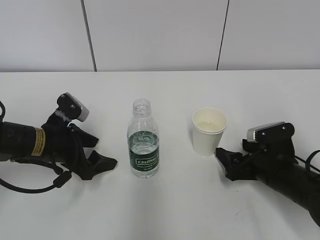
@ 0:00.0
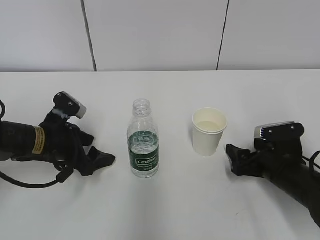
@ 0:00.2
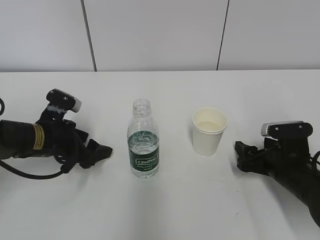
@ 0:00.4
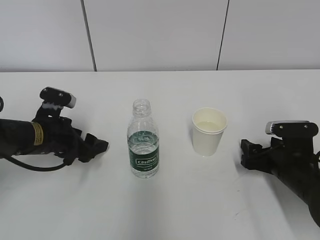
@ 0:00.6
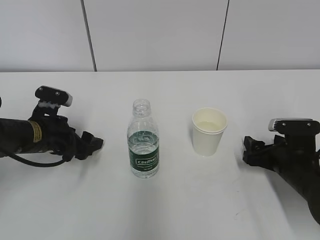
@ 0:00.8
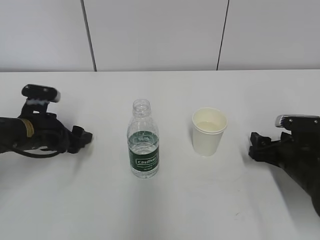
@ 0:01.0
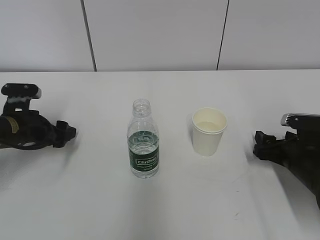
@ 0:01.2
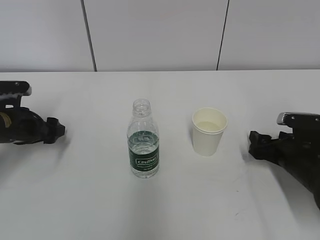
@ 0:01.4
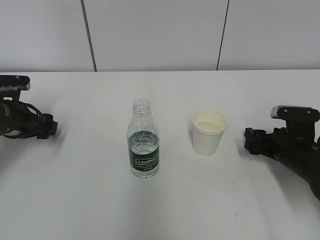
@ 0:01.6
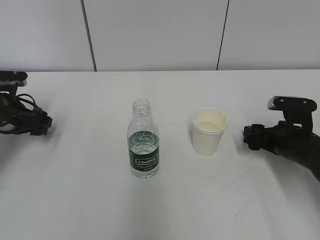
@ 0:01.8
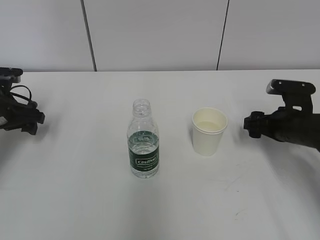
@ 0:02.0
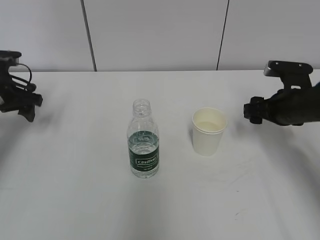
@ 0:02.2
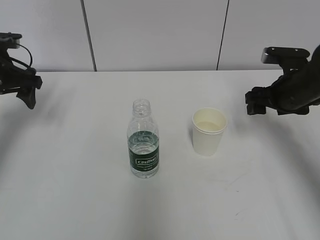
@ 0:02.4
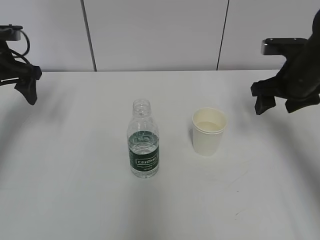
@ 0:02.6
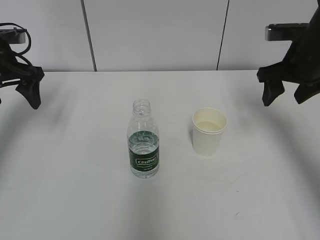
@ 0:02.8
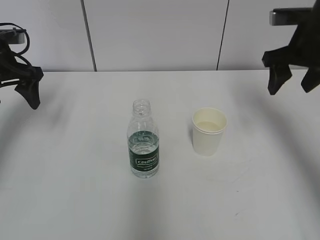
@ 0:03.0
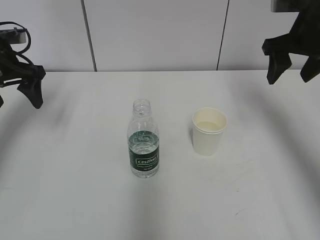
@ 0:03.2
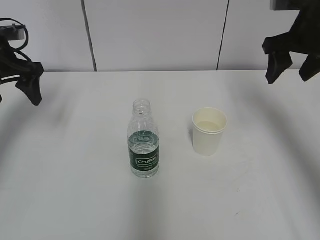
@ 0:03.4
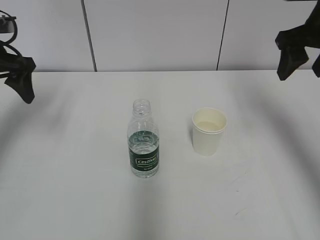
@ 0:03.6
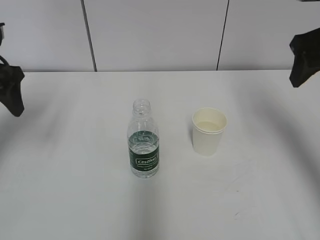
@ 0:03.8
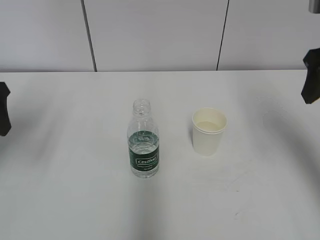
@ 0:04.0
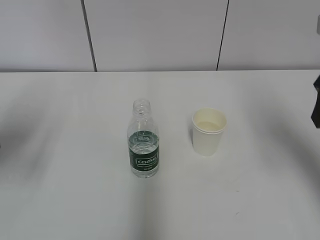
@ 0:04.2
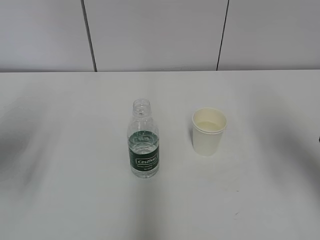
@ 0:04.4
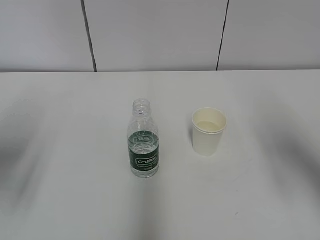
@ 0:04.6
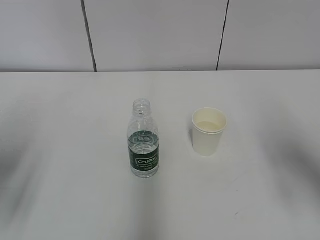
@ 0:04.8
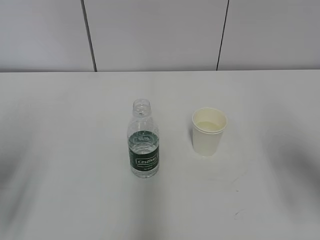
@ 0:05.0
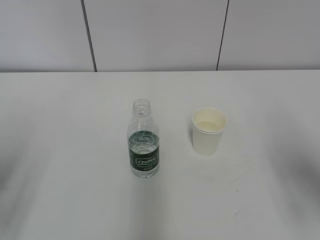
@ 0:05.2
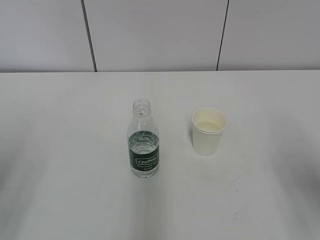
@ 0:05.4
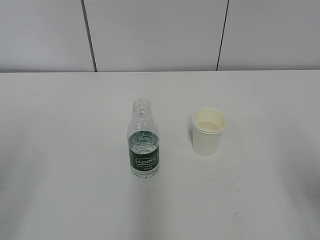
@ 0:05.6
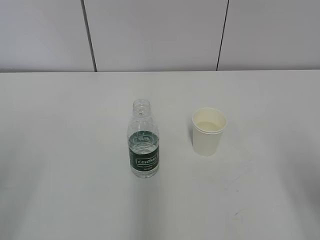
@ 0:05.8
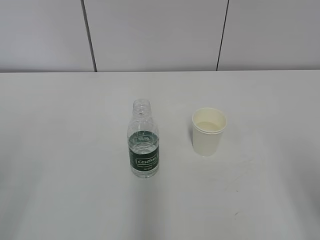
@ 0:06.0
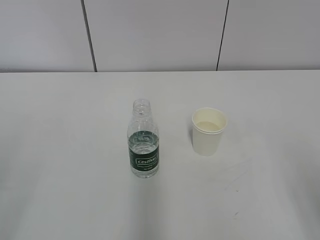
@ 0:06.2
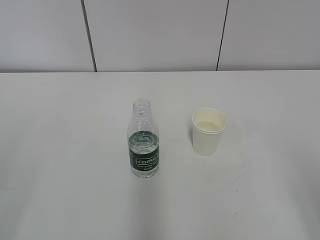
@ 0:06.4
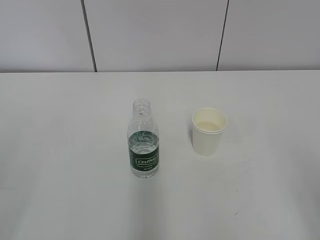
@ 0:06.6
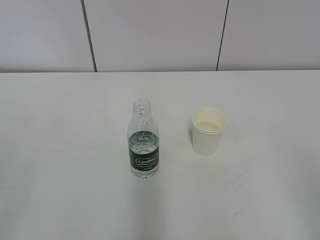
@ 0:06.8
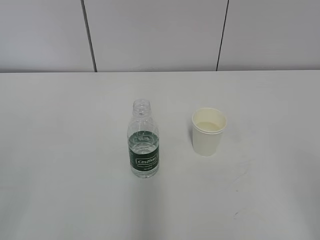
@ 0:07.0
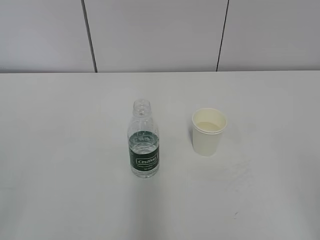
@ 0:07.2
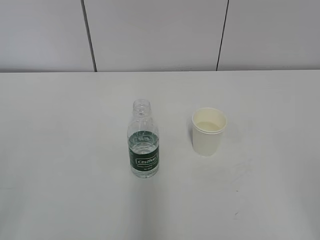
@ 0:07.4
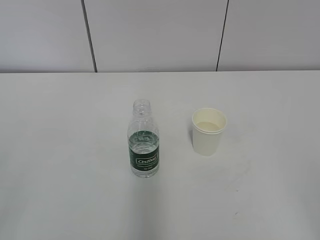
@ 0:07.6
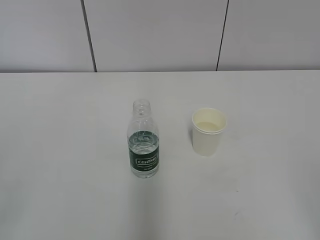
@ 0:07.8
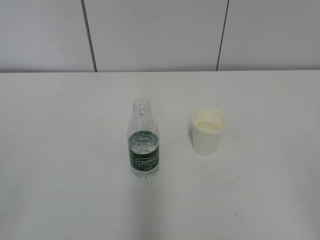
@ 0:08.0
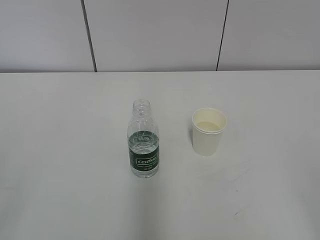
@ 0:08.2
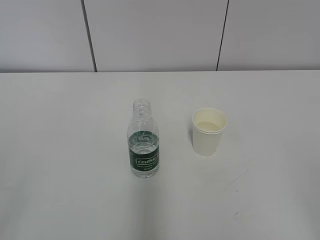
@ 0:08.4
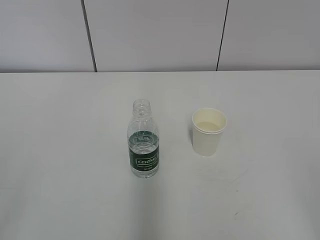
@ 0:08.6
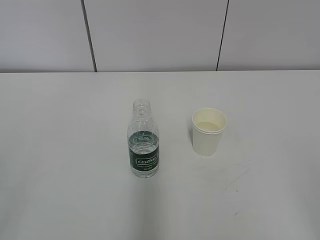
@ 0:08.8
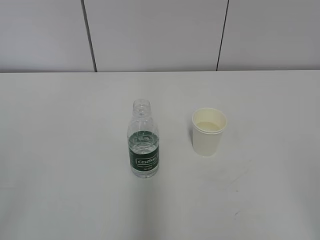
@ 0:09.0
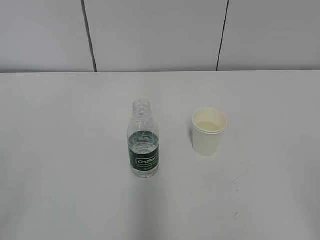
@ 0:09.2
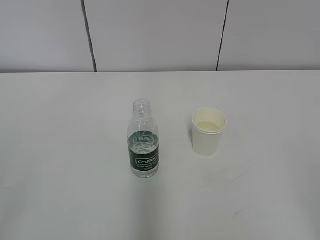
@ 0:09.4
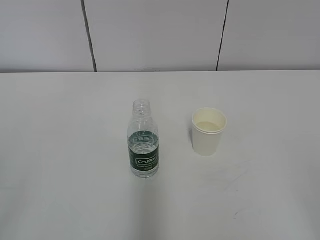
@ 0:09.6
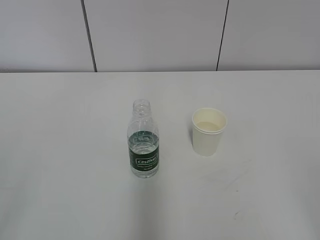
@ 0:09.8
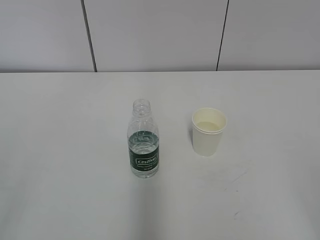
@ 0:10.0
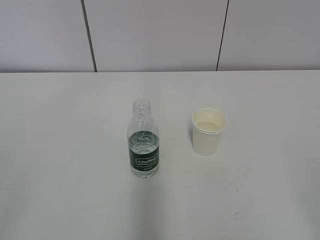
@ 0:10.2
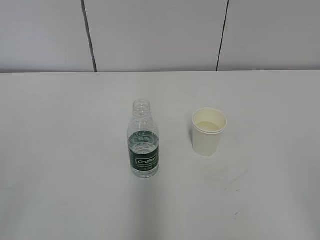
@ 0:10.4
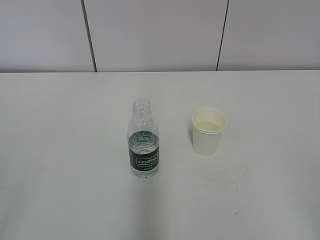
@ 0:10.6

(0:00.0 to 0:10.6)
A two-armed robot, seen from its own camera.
0:00.0 - 0:01.6: The right gripper moves about 5 cm. The left gripper is displaced to the left and forward by some 10 cm.
0:01.6 - 0:03.0: The right gripper travels upward by some 20 cm, while the left gripper shifts about 15 cm upward.
0:03.0 - 0:04.6: Both grippers travel together backward, some 15 cm.
0:04.6 - 0:06.0: The grippers both shift backward by about 15 cm.
0:07.6 - 0:10.6: Neither gripper changes place.
